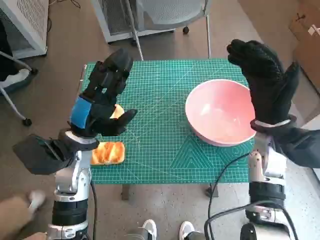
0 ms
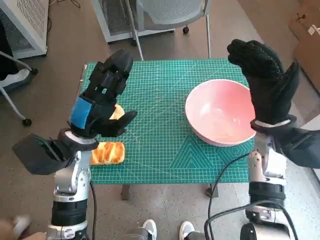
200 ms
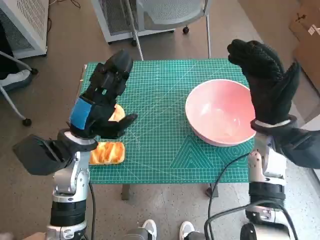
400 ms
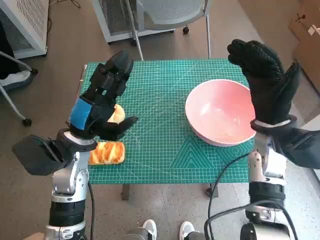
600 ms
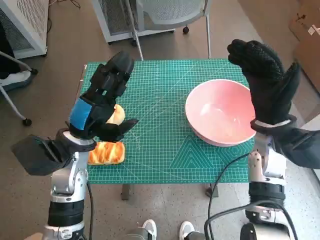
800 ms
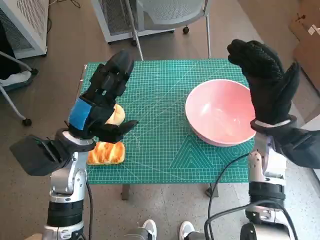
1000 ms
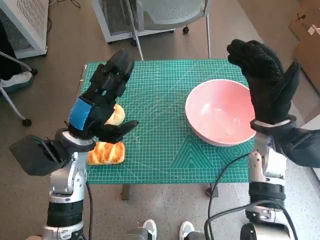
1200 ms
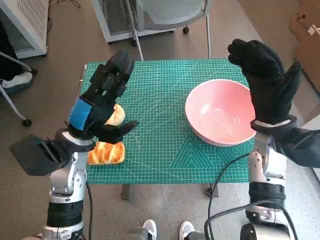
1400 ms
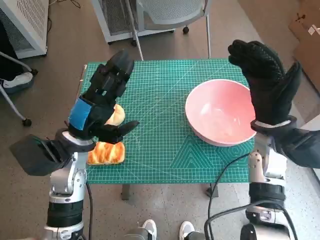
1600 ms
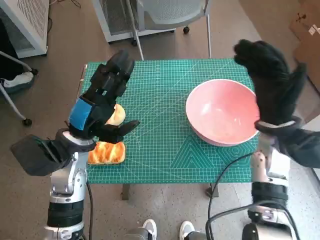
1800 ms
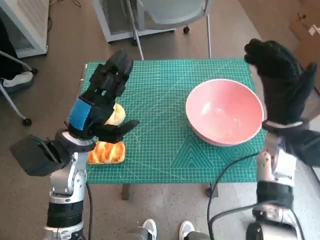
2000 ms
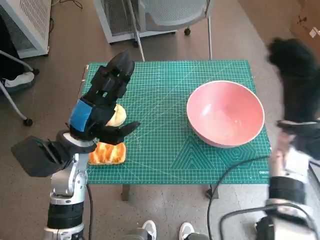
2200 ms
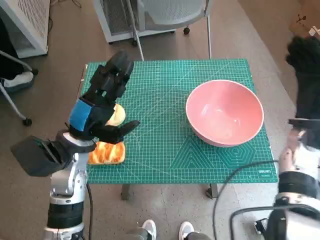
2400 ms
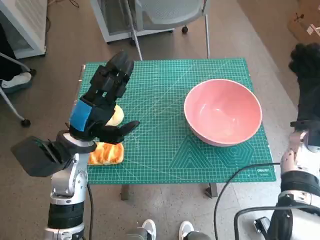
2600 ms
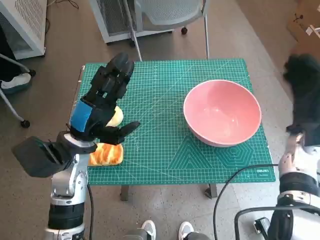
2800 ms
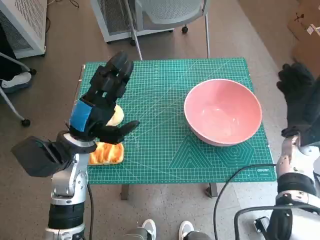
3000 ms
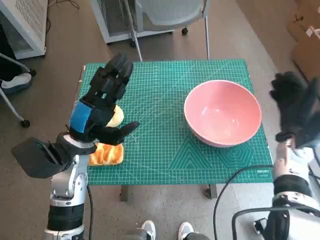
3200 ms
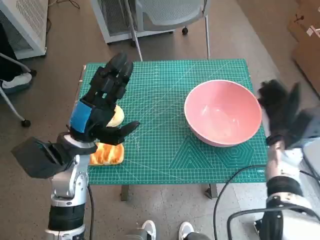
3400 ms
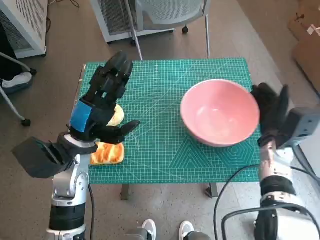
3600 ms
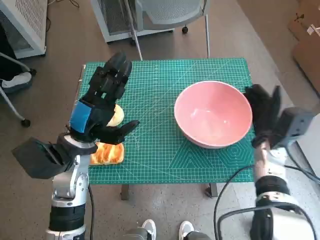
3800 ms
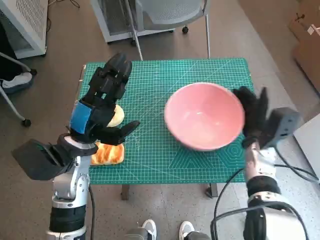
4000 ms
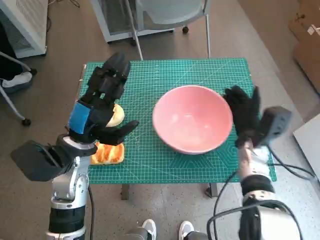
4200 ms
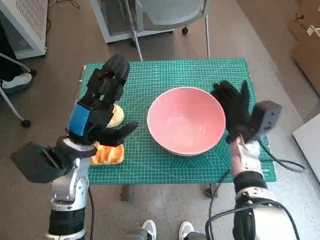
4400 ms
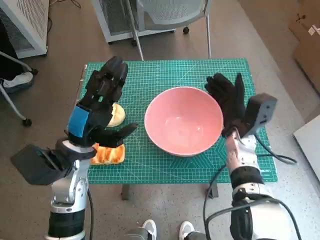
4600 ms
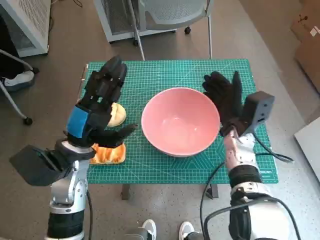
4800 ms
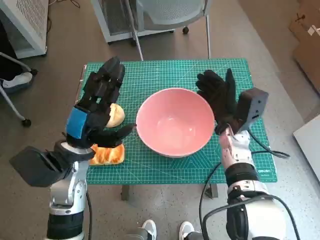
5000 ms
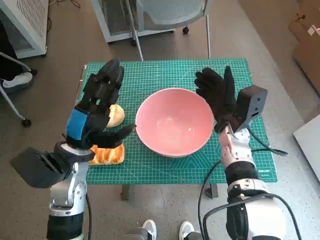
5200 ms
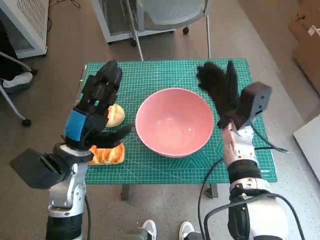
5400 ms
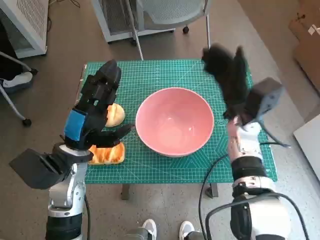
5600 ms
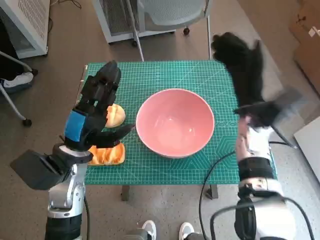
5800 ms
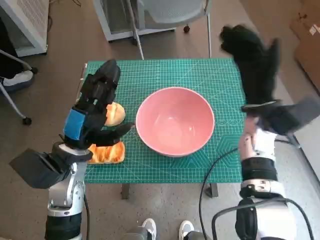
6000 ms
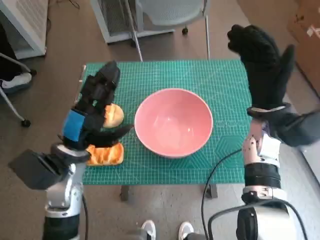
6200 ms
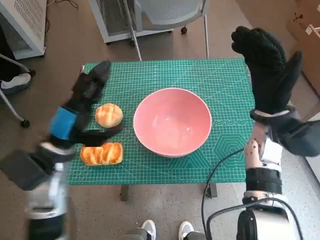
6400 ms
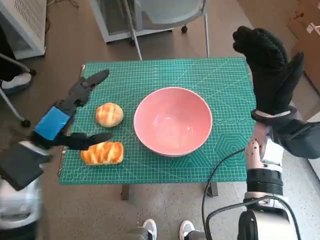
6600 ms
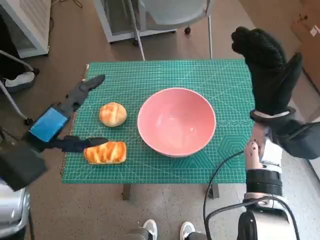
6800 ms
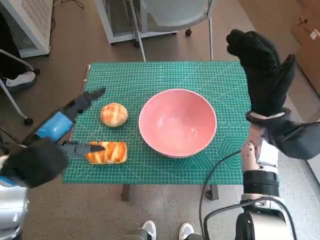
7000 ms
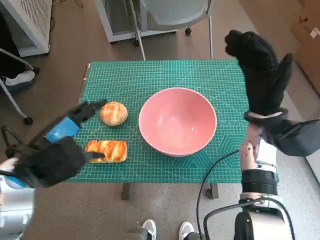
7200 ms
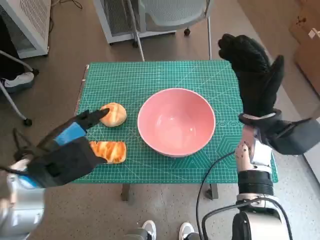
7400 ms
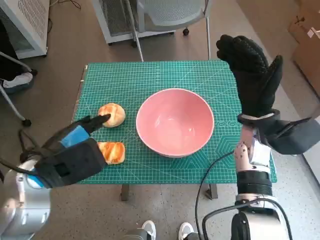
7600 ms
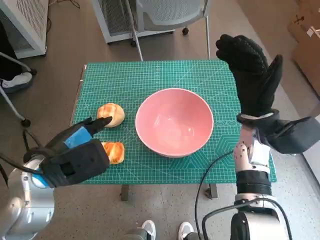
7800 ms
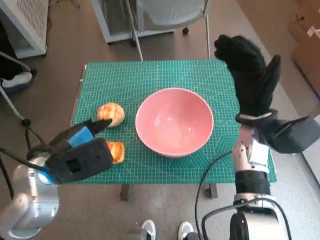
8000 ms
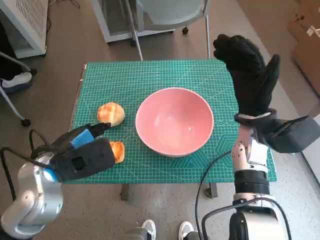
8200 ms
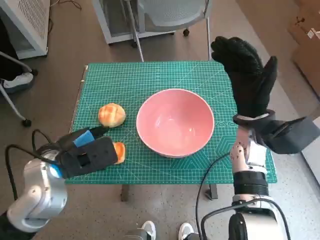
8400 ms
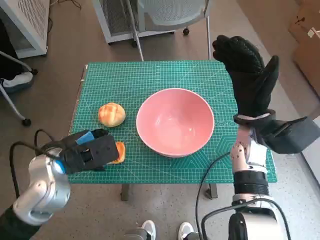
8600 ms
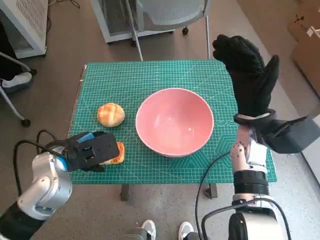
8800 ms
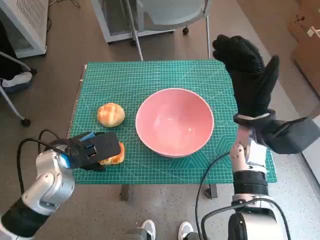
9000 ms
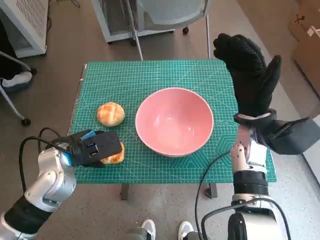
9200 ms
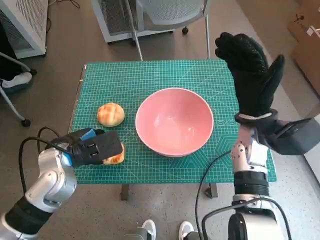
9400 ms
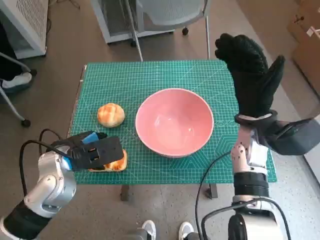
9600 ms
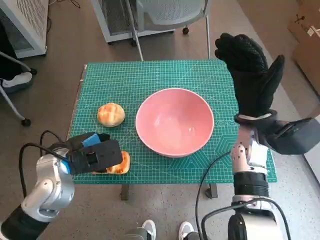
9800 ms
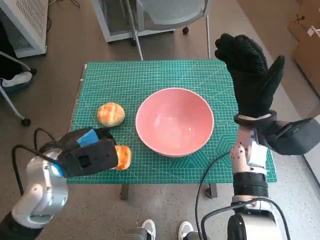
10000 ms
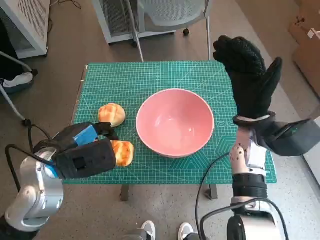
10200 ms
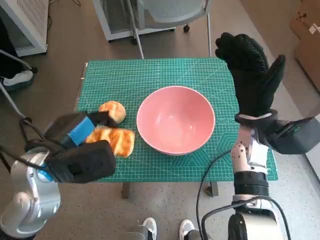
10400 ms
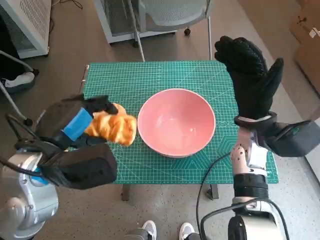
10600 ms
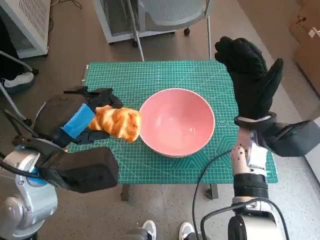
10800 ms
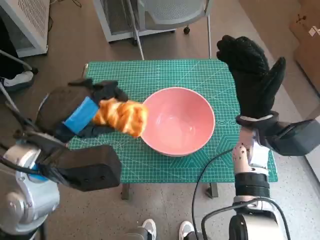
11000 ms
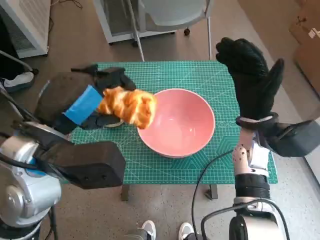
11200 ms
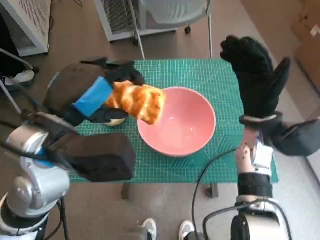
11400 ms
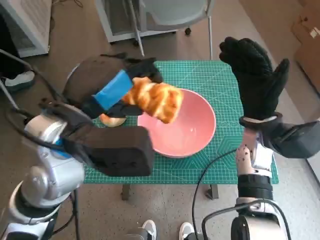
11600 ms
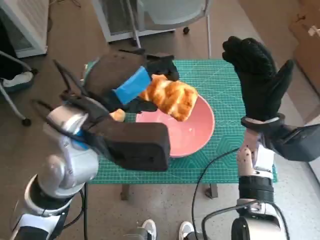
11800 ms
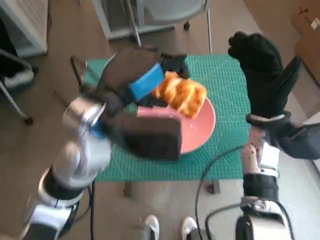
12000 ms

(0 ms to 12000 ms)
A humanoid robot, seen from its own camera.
Step, 0 ms - 5200 ms: Move the pink bowl to the center of table with right hand.
Step, 5400 ms - 9400 ms: Grasp the long bread with left hand.
1600 ms - 3000 ms: The right hand travels to the right and downward by some 10 cm.
3000 ms - 4400 ms: The right hand moves to the left, some 10 cm.
4400 ms - 6000 ms: The right hand shifts about 10 cm upward.
6000 ms - 7600 ms: The left hand is displaced upward by roughly 5 cm.
7600 ms - 9000 ms: The left hand goes about 5 cm downward.
9000 ms - 10400 ms: The left hand moves approximately 5 cm.
10400 ms - 12000 ms: The left hand heads to the right and upward, covering approximately 15 cm.

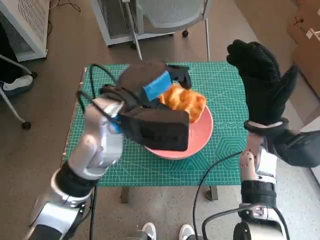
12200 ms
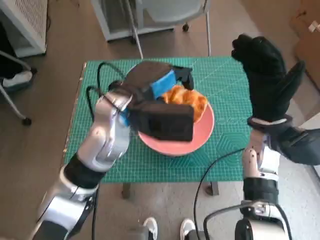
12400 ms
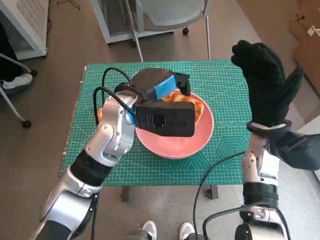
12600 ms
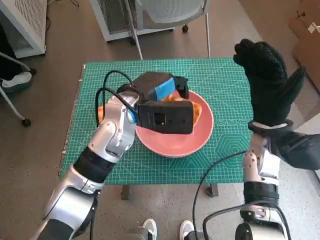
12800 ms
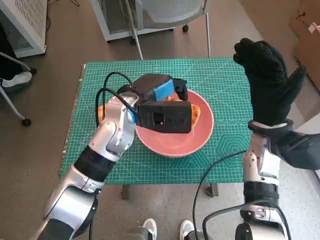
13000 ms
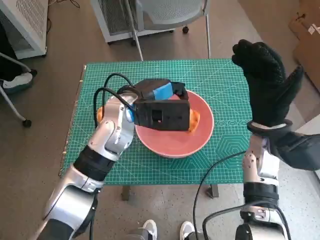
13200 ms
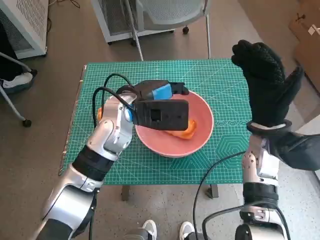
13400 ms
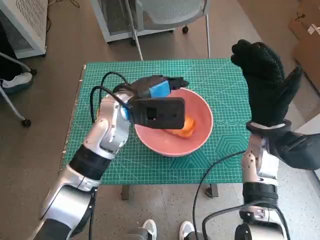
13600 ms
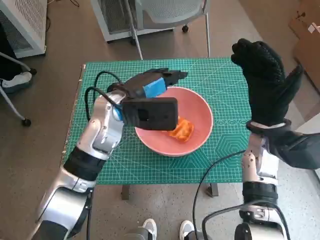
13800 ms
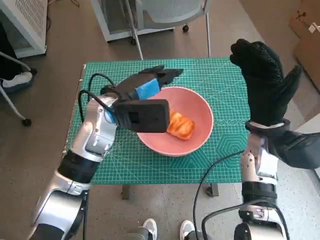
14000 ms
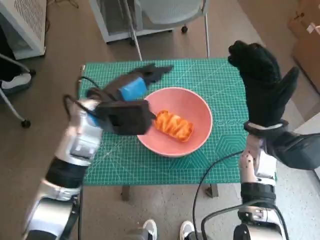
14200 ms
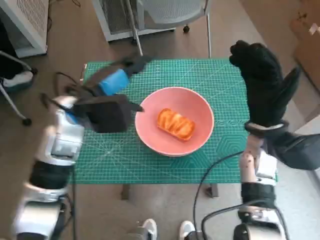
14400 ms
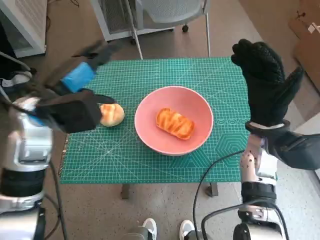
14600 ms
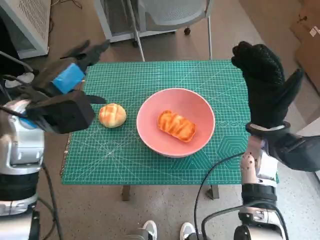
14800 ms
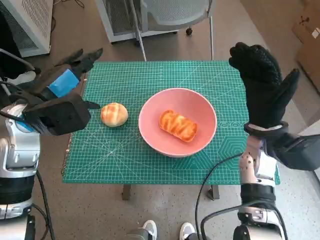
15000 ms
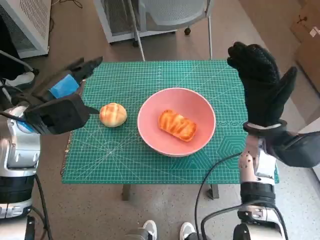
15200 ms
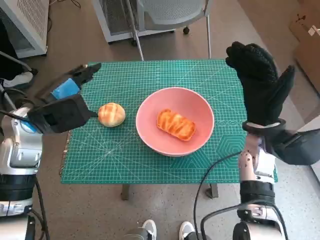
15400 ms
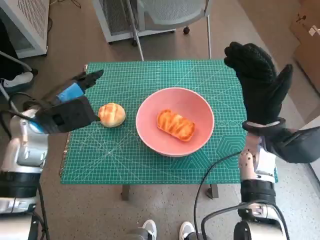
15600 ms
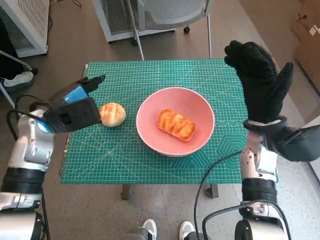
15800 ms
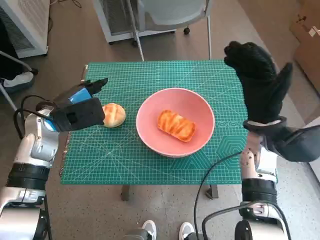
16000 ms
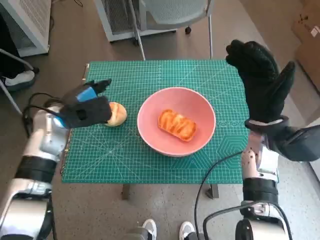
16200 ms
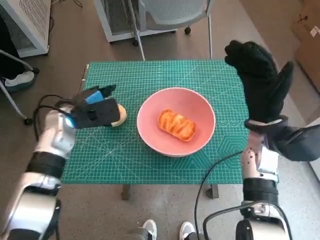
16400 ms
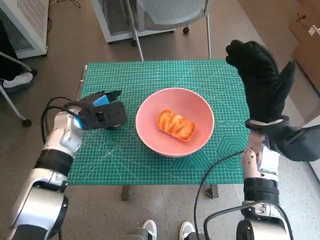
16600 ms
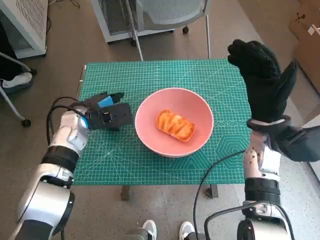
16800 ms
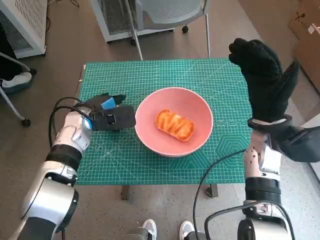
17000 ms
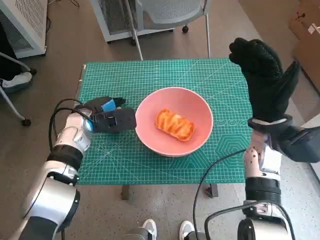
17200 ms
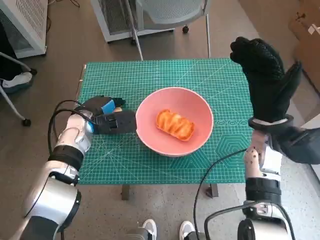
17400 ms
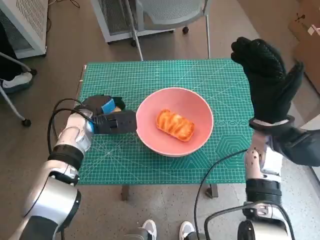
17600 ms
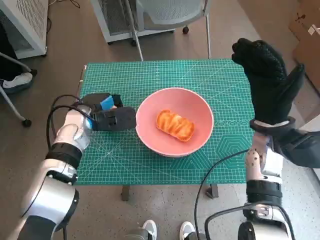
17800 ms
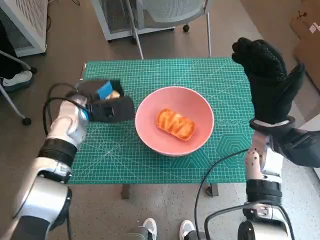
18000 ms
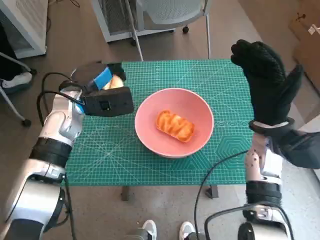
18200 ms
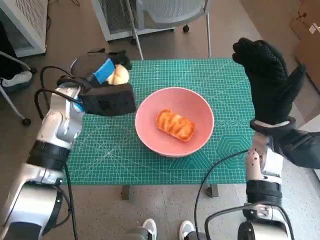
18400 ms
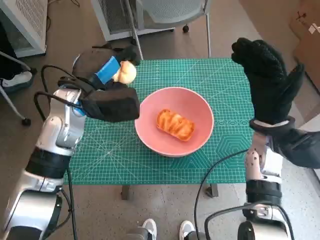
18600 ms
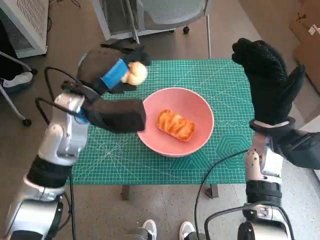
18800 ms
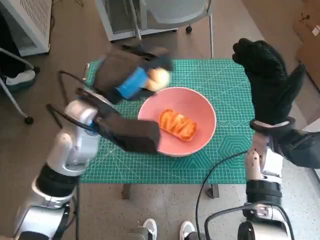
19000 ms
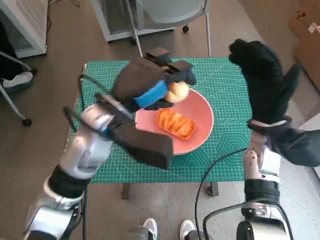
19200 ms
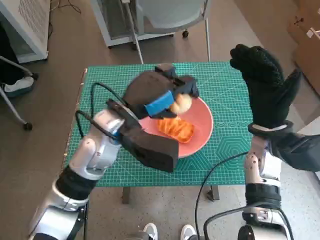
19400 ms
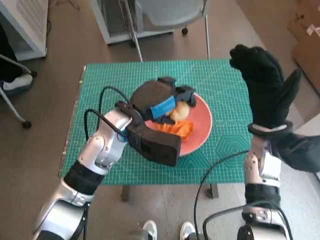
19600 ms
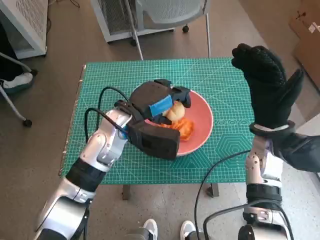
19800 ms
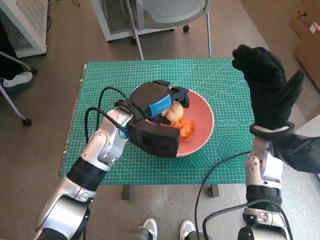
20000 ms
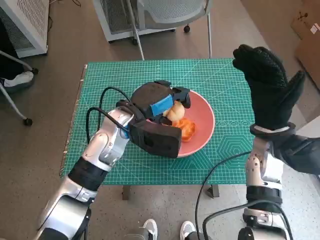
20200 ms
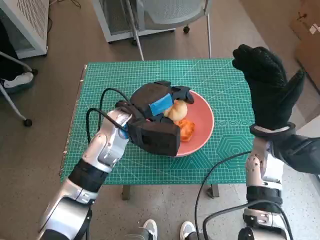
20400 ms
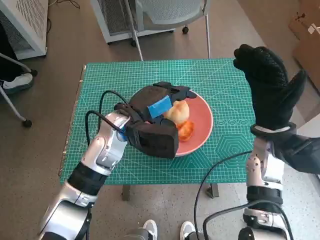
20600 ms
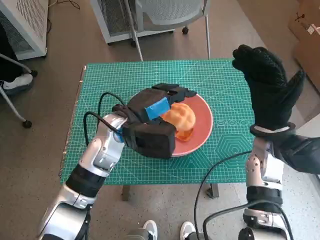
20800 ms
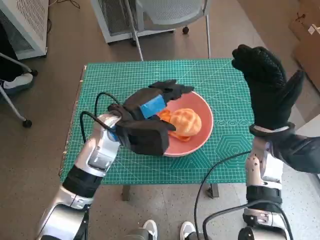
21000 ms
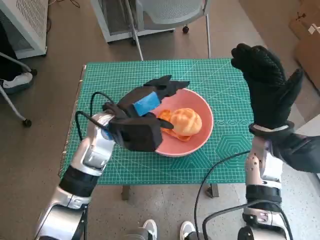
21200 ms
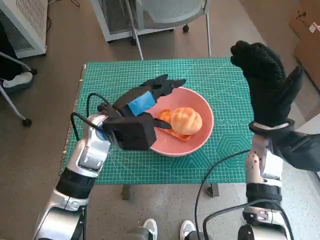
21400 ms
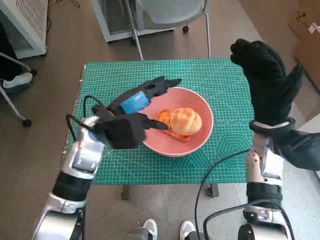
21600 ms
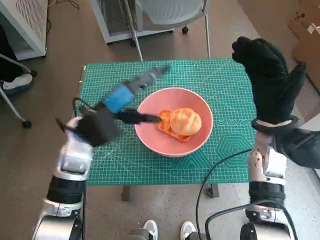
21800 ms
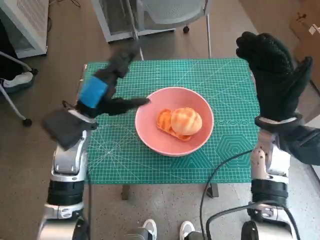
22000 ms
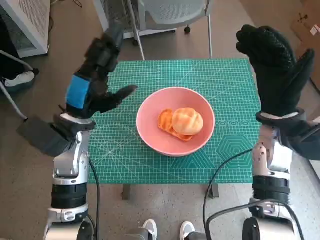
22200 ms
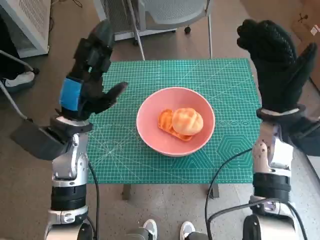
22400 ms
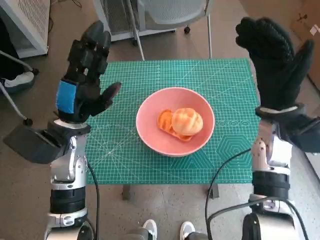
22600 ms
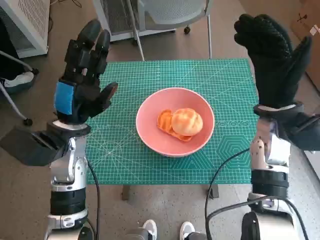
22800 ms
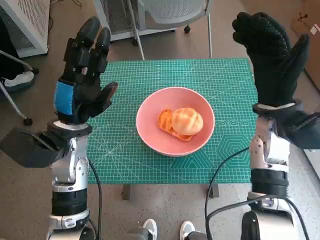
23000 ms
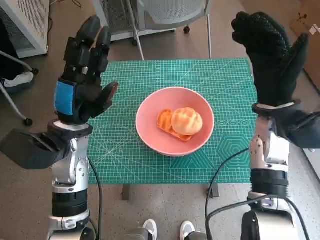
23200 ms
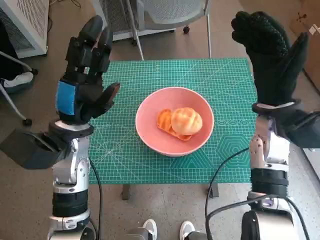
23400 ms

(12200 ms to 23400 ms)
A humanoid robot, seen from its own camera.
Step, 13600 ms - 17400 ms: Grasp the round bread with left hand.
Step, 17600 ms - 20800 ms: Place the round bread in pink bowl with left hand.
12200 ms - 13800 ms: The left hand is displaced downward and forward by roughly 5 cm.
13800 ms - 15400 ms: The left hand moves to the left, roughly 15 cm.
15400 ms - 17000 ms: The left hand is displaced downward and forward by roughly 10 cm.
17000 ms - 18600 ms: The left hand shifts about 10 cm upward.
18600 ms - 20200 ms: The left hand heads to the right, covering some 10 cm.
20200 ms - 21800 ms: The left hand is displaced to the left by about 5 cm.
